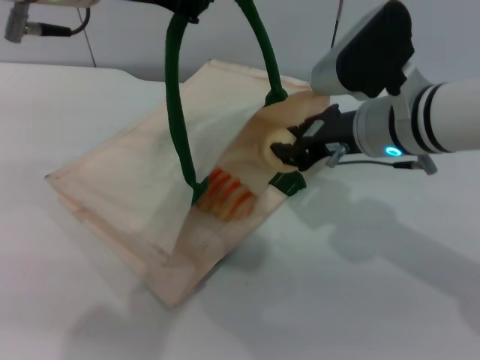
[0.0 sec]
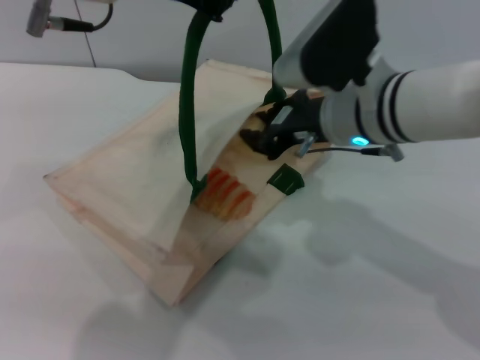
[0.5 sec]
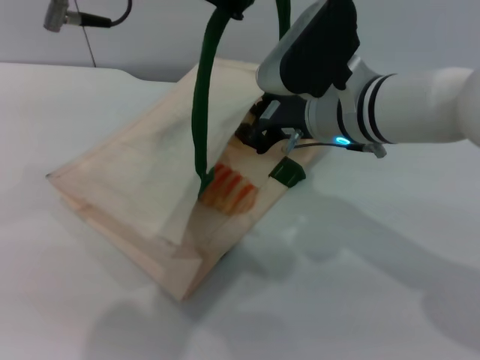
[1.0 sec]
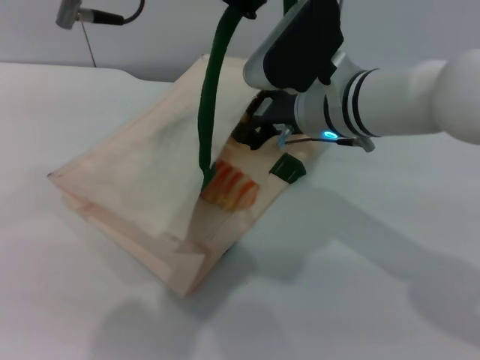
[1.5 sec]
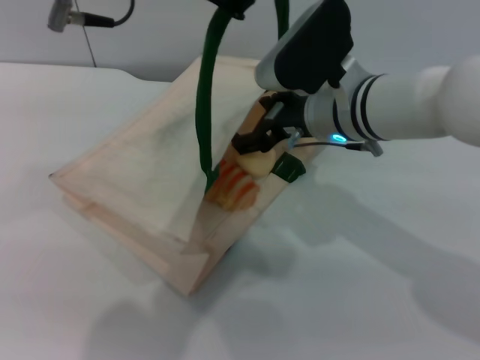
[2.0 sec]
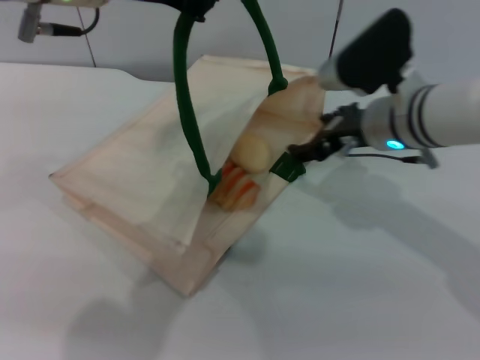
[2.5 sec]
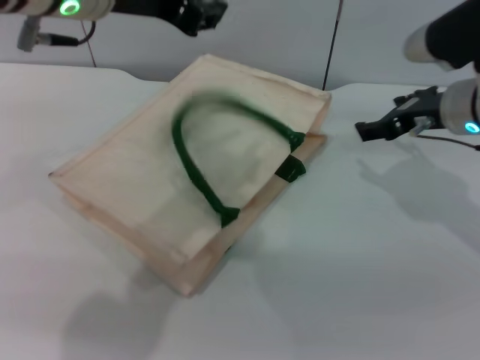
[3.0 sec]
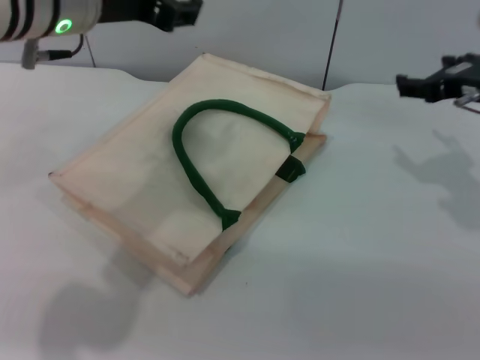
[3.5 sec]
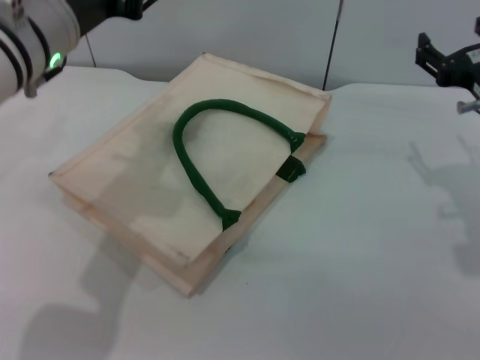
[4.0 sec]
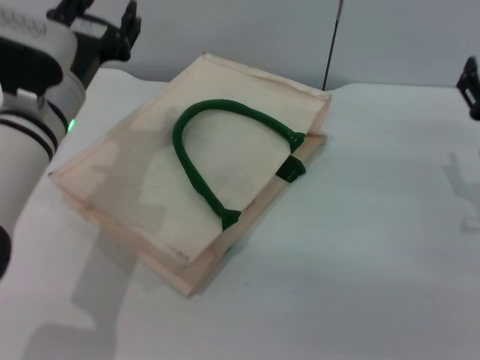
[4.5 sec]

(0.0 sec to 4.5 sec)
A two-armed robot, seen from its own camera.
Task of the whole recording: pick up the bread and egg yolk pastry from the table and place it in the white handbag.
Step, 0.0 sec - 2.0 sec: Place the egg yolk pastry into the woven bag with the right gripper.
Step, 2.5 sec - 3.0 sec: Lower the woven bag with the left gripper to close it.
0.0 sec - 2.0 sec: The right gripper changes place by roughly 5 cm, and opens.
2.0 sec - 4.5 sec: The left gripper heads downward and to the left, covering some 20 cm, and opens its fingers. The right gripper goes approximately 20 cm to the right and backward.

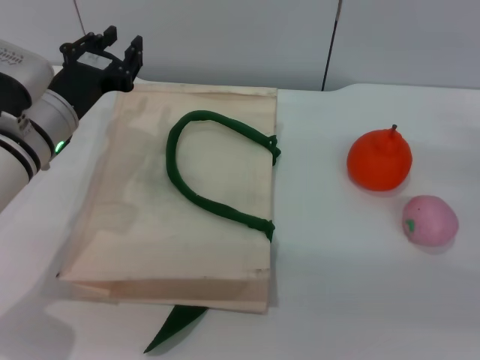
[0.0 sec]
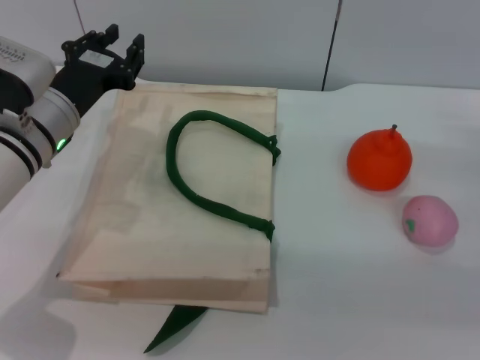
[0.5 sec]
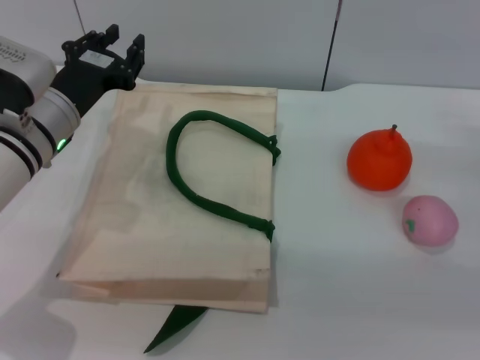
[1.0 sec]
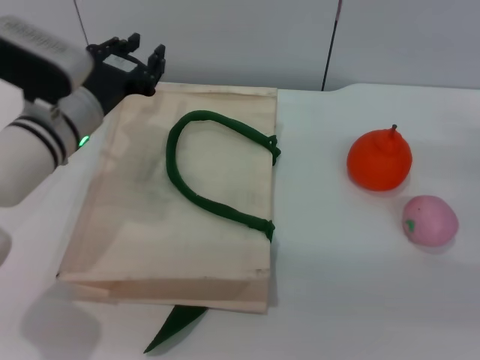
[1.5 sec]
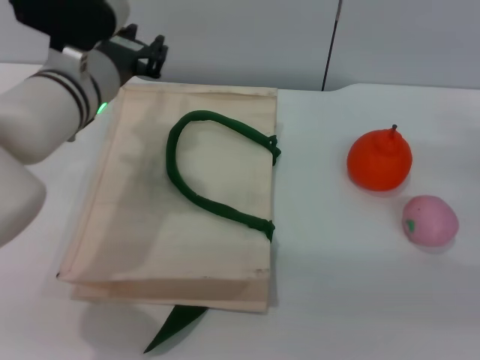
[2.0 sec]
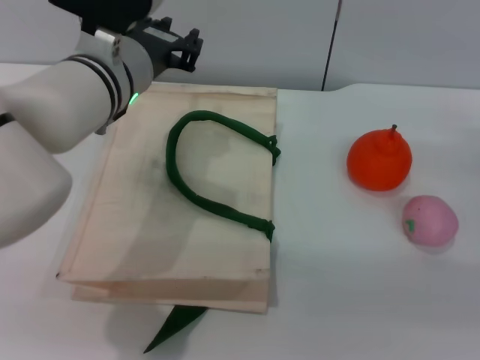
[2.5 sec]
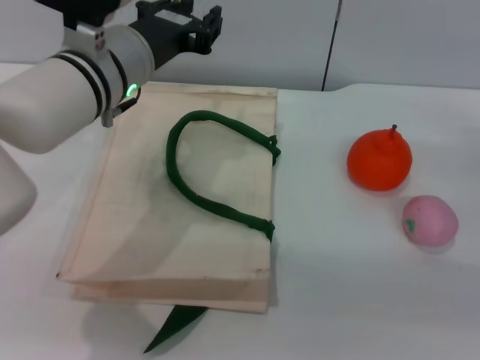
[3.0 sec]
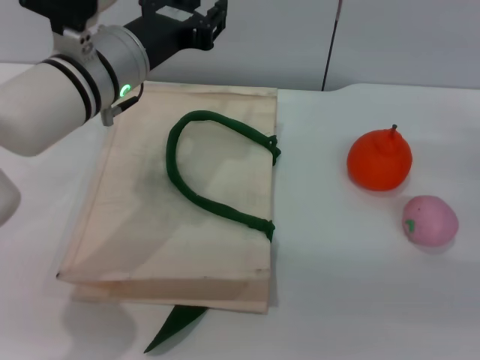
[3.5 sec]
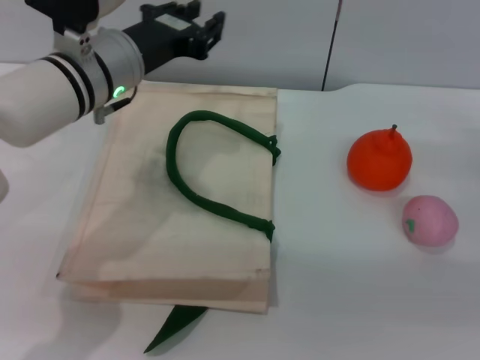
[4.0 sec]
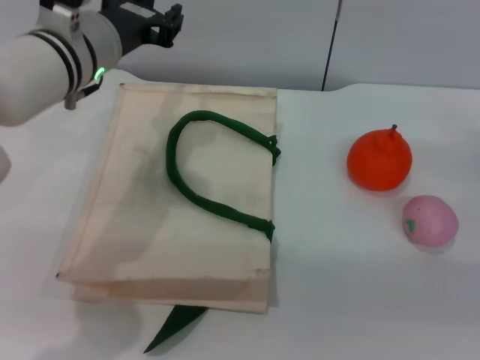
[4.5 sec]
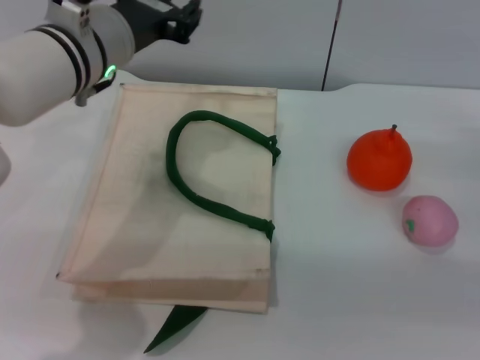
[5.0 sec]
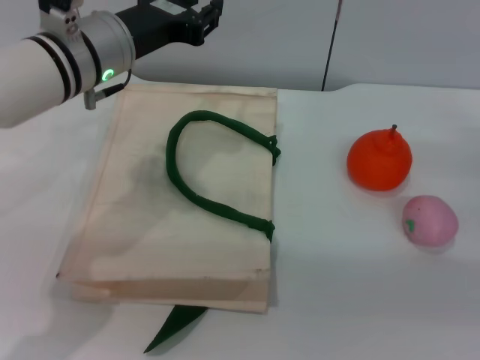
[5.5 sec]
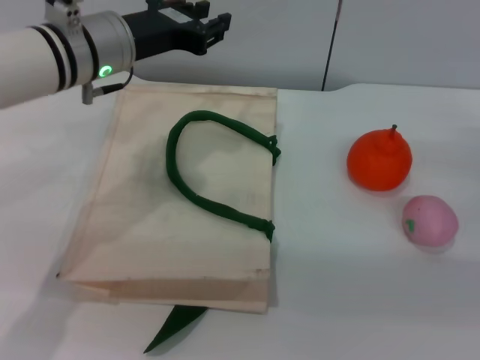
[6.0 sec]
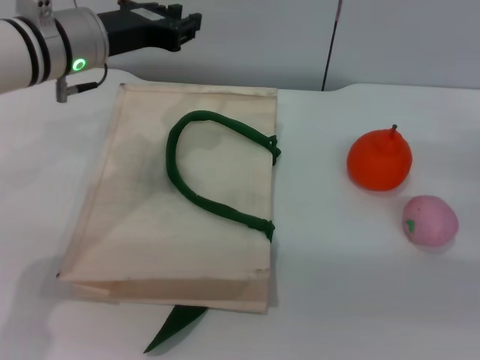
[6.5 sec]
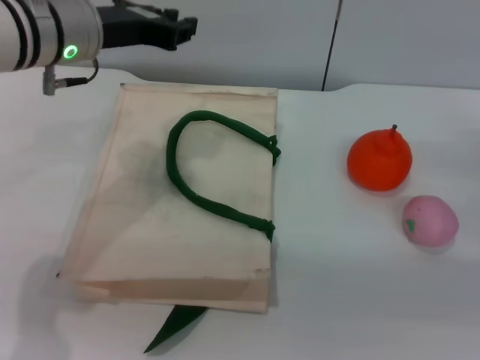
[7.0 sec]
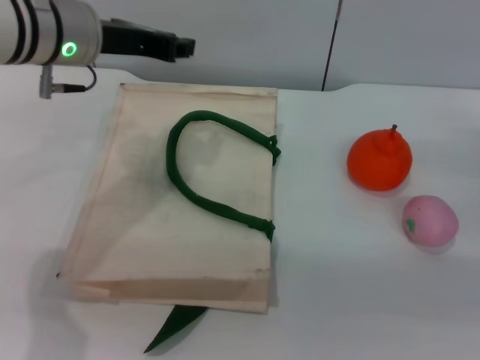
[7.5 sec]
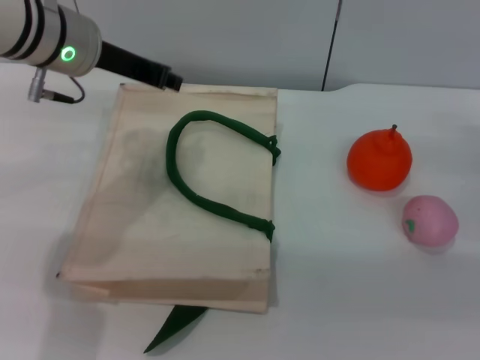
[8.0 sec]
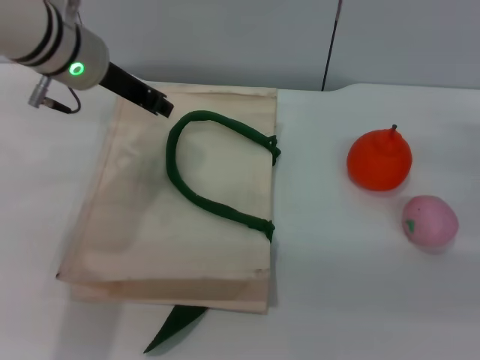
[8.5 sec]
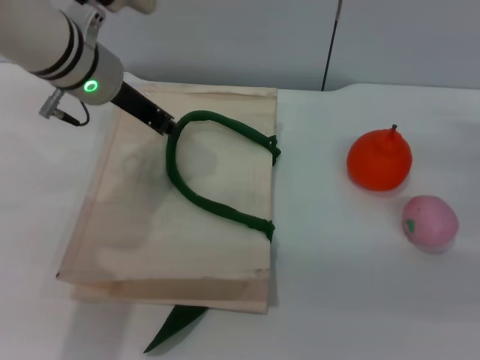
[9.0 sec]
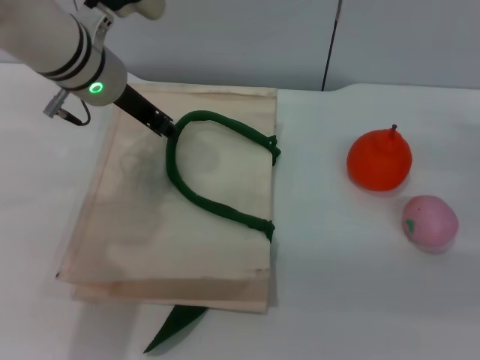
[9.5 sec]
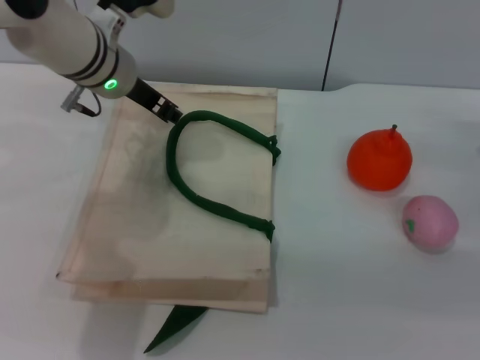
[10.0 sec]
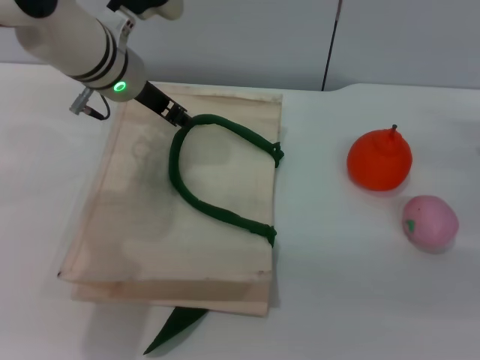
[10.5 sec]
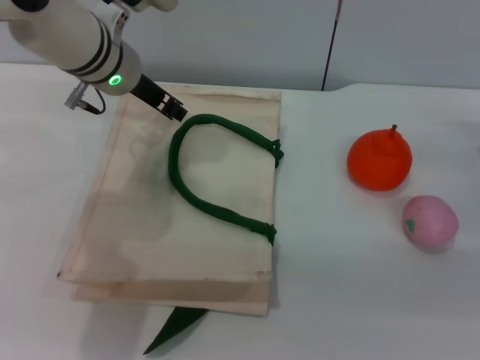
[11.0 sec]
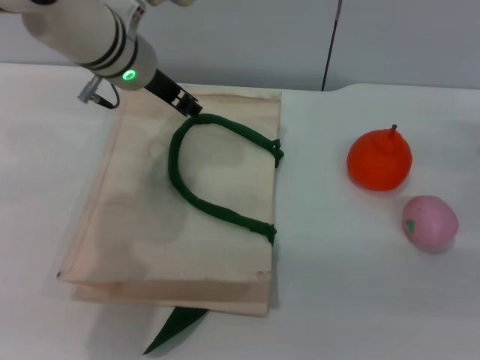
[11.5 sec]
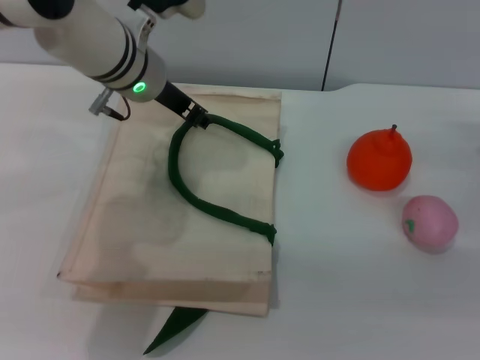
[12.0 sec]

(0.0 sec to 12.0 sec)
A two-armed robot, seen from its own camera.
Task of the whole recording: pick up the orange and peach from the table and place it in the white handbag.
0.0 sec - 2.0 sec: The left gripper goes roughly 10 cm upward and to the right.
4.0 sec - 6.0 sec: There are only small adjustments of the grippers.
8.0 sec - 10.0 sec: The left gripper changes place by about 5 cm.
10.0 sec - 12.0 sec: The grippers make only small movements.

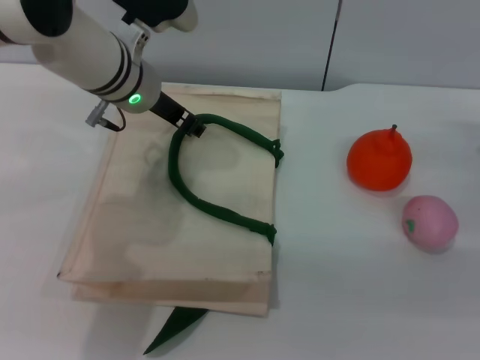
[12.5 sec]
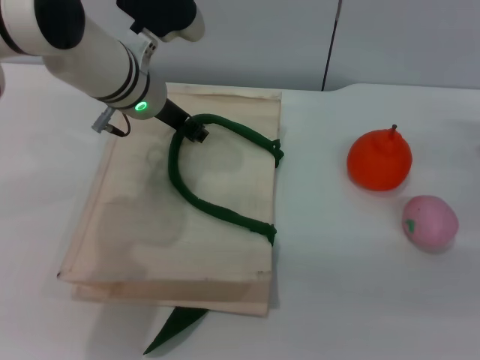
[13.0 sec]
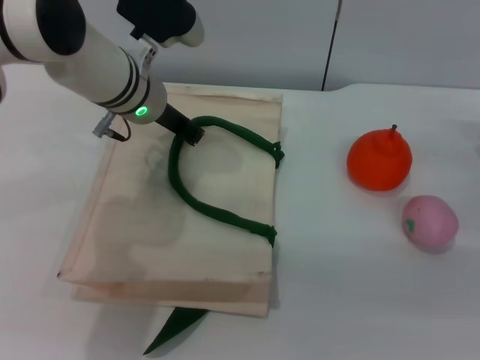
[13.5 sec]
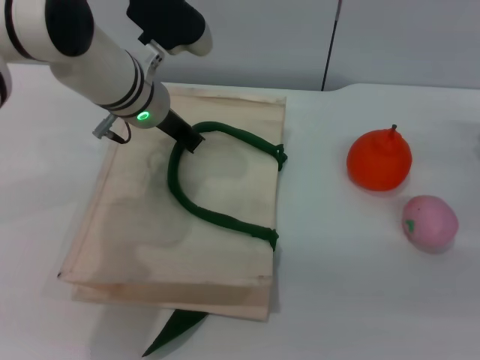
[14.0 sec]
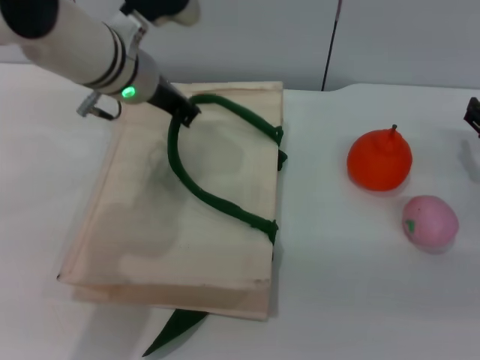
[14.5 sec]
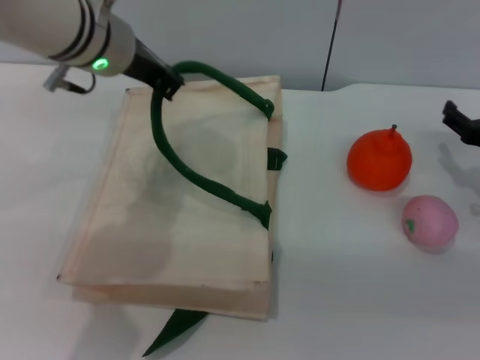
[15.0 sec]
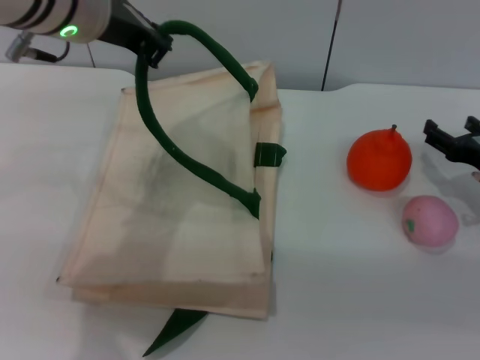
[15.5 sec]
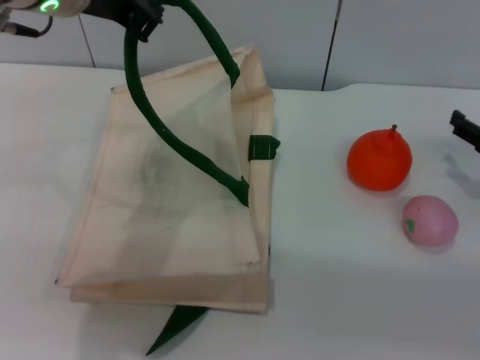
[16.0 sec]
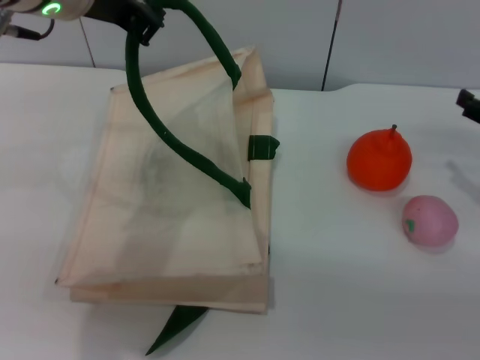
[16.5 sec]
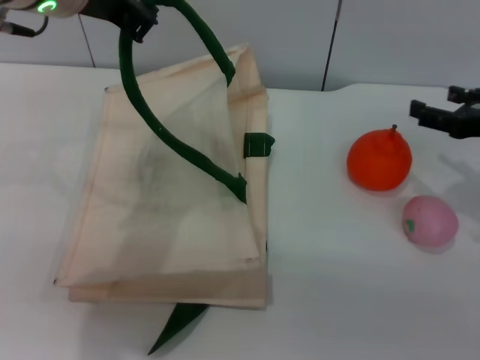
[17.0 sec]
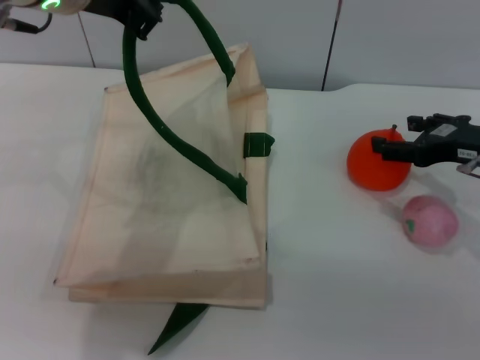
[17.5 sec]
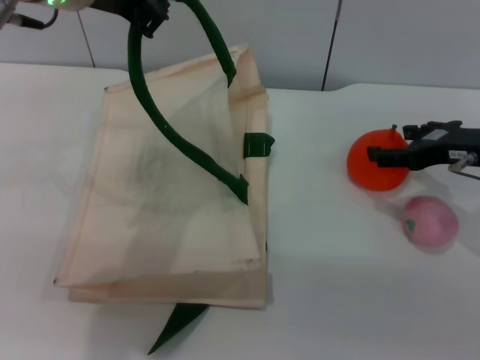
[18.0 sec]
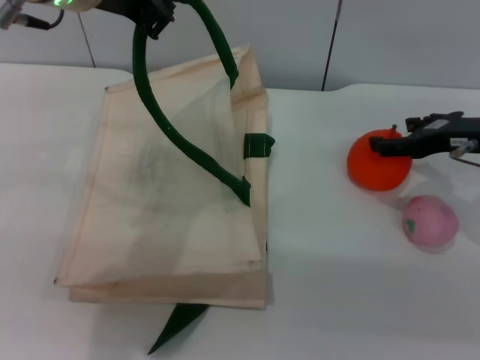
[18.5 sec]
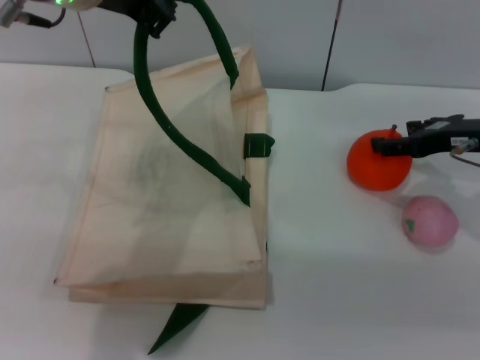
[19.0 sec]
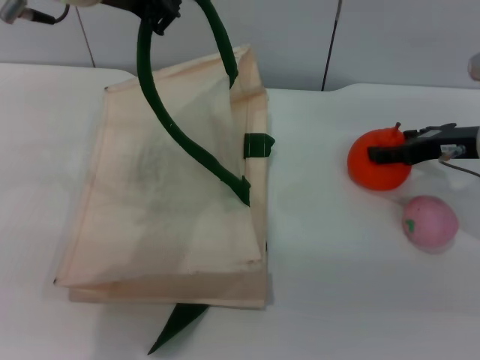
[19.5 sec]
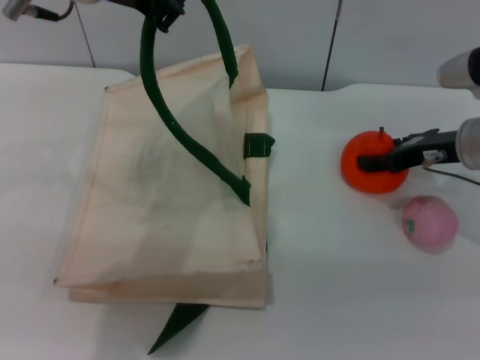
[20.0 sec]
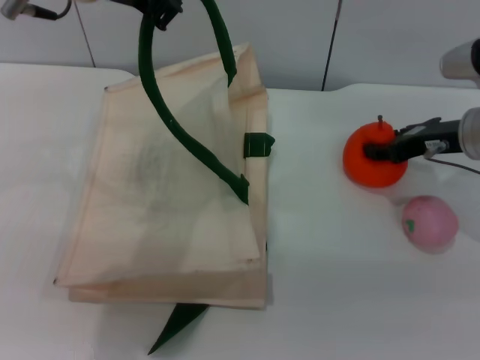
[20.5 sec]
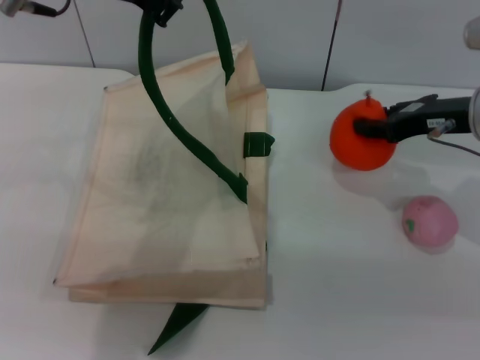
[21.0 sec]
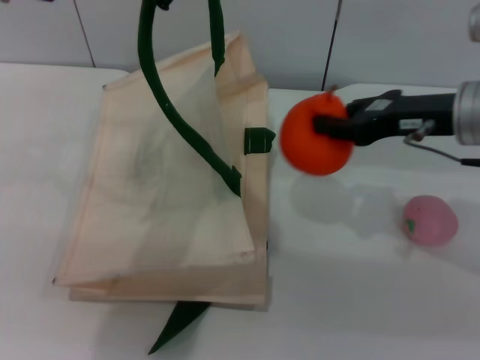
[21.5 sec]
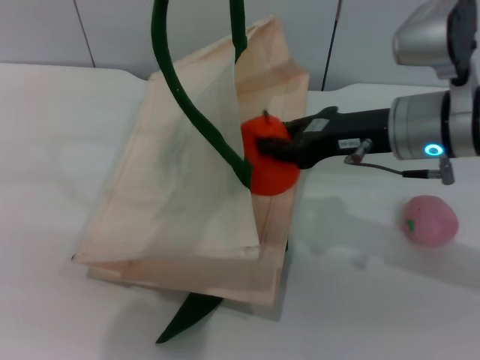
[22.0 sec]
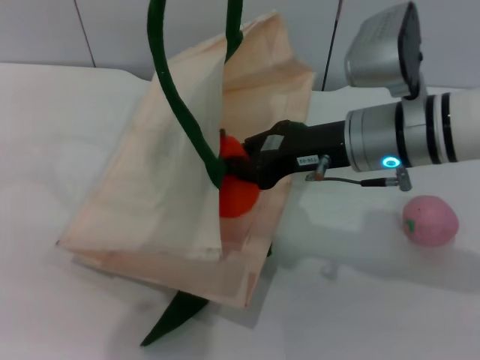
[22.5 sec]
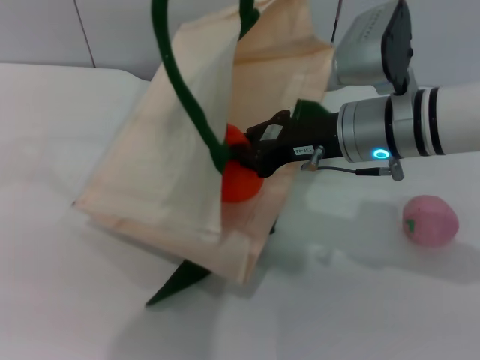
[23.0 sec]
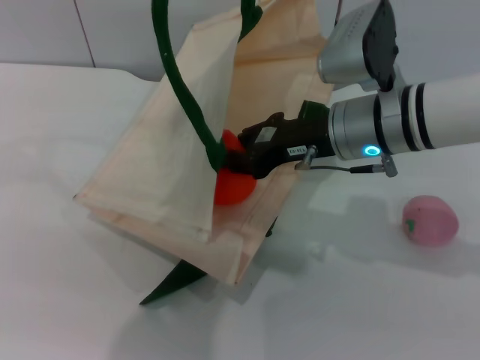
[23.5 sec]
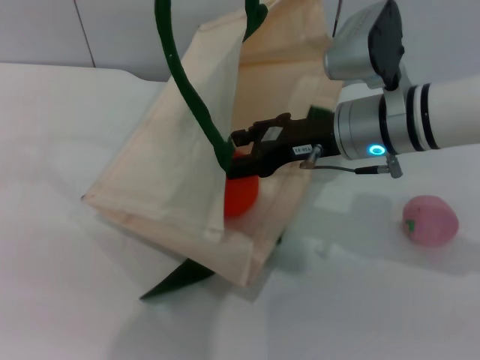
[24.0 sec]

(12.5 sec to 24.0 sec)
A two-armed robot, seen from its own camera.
Task of the whole recording: pick up the orange and peach from the table and place it in the white handbag.
Step, 14.0 sec - 21.0 sec: Pick up the orange with the right gripper.
12.5 sec - 14.5 sec: The left gripper closes up.
14.5 sec - 16.5 sec: The right gripper is displaced upward by approximately 5 cm, while the left gripper heads upward and backward, covering some 15 cm.
16.5 sec - 18.5 sec: The right gripper shifts approximately 10 cm to the left.
18.5 sec - 20.0 sec: The grippers make only small movements.
20.0 sec - 22.0 sec: The right gripper travels to the left and upward by some 10 cm, and closes up.
